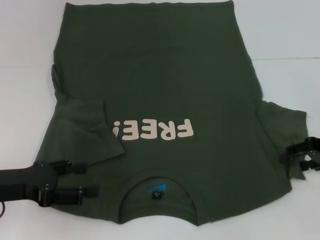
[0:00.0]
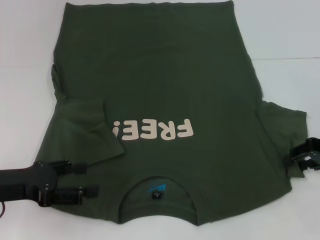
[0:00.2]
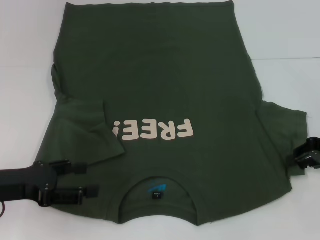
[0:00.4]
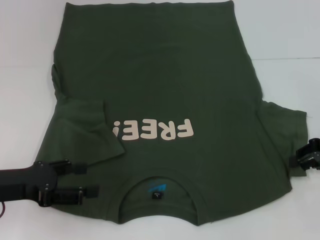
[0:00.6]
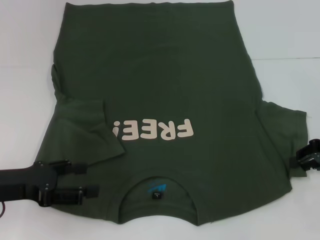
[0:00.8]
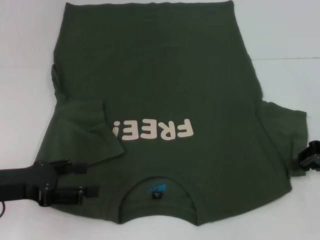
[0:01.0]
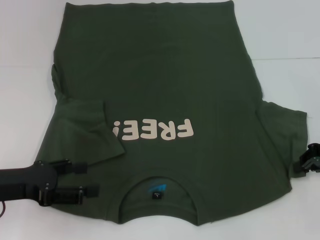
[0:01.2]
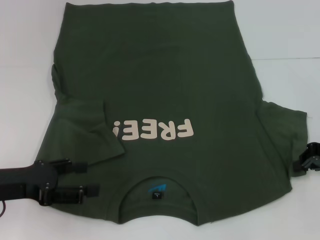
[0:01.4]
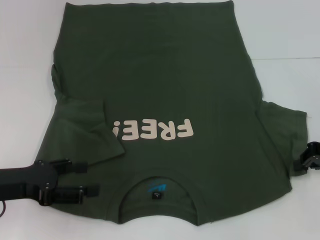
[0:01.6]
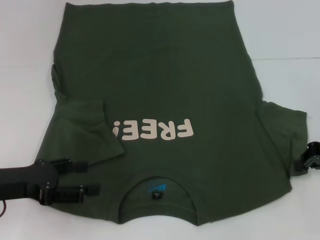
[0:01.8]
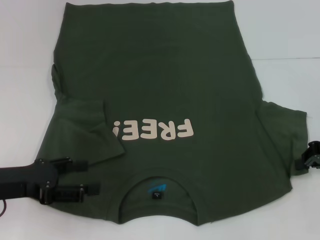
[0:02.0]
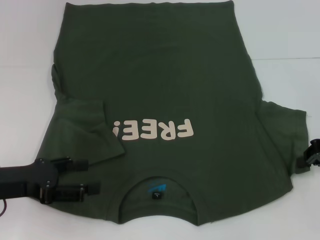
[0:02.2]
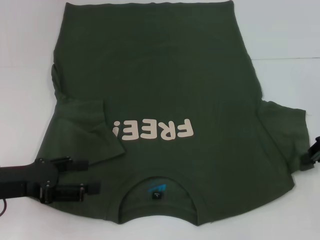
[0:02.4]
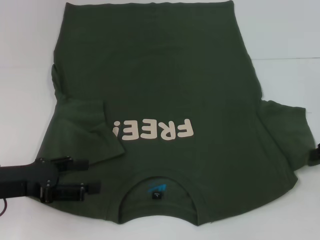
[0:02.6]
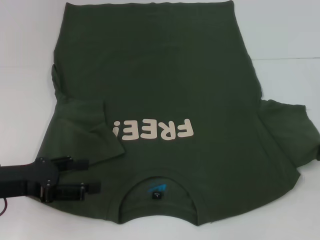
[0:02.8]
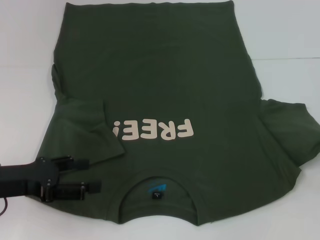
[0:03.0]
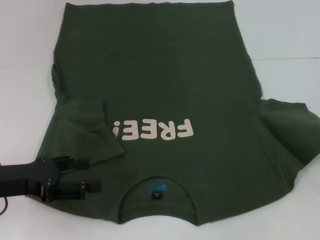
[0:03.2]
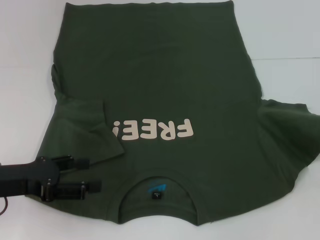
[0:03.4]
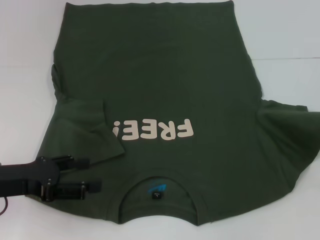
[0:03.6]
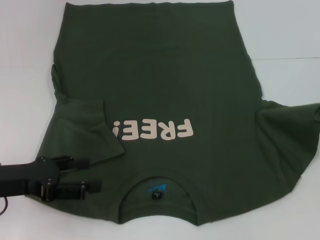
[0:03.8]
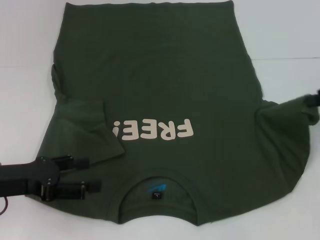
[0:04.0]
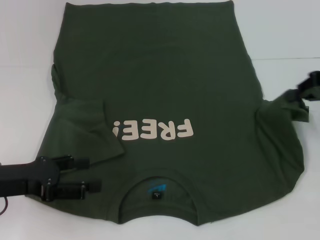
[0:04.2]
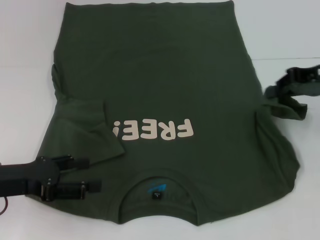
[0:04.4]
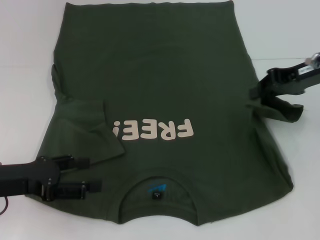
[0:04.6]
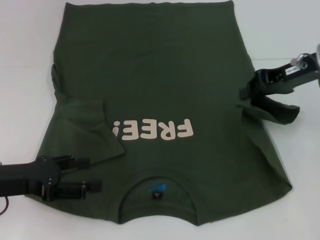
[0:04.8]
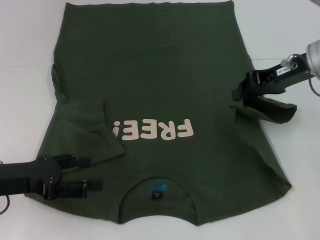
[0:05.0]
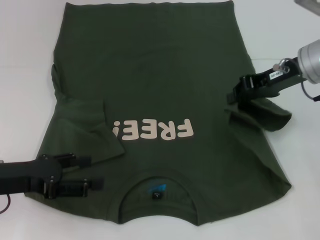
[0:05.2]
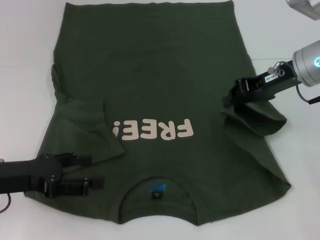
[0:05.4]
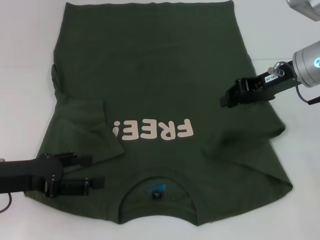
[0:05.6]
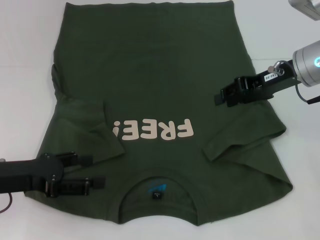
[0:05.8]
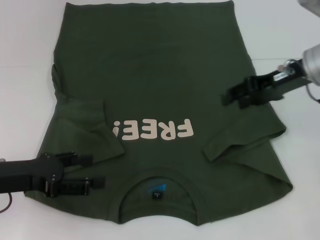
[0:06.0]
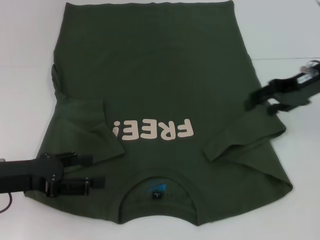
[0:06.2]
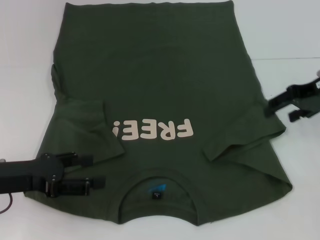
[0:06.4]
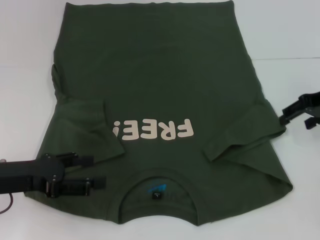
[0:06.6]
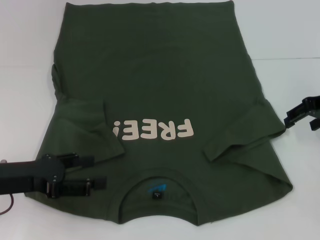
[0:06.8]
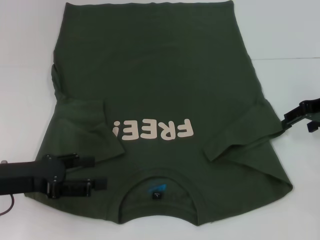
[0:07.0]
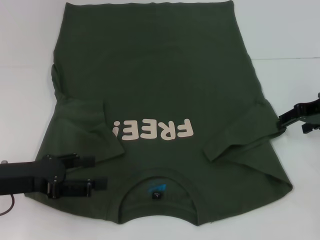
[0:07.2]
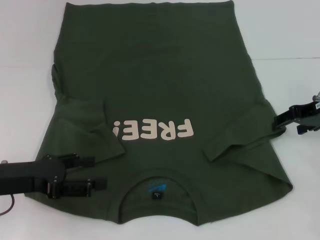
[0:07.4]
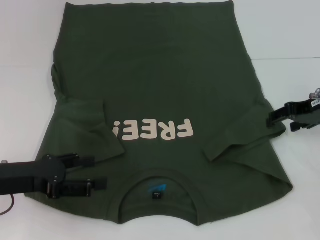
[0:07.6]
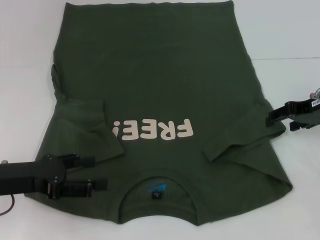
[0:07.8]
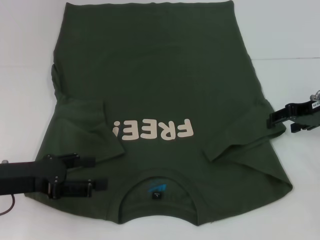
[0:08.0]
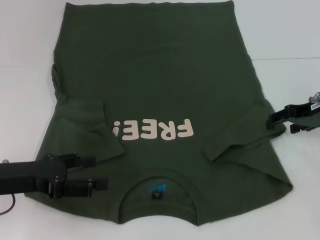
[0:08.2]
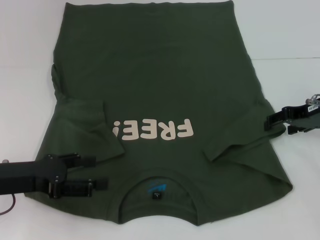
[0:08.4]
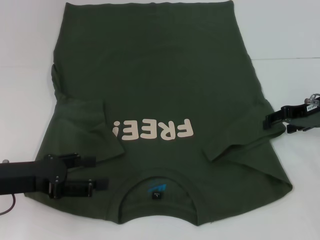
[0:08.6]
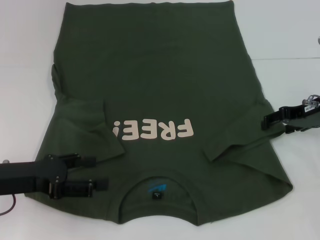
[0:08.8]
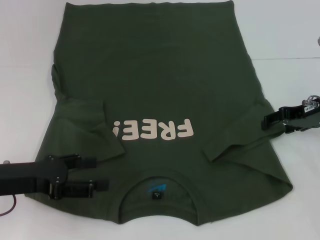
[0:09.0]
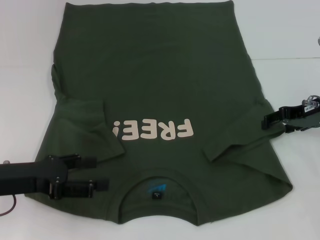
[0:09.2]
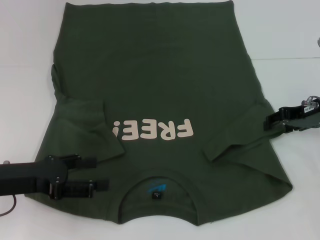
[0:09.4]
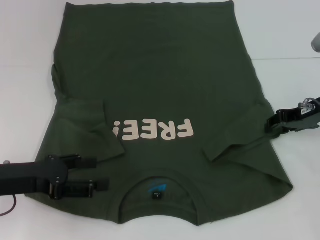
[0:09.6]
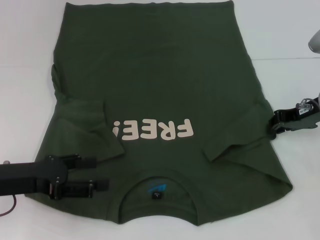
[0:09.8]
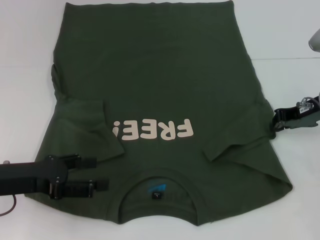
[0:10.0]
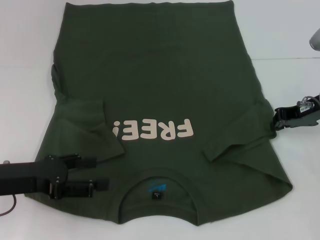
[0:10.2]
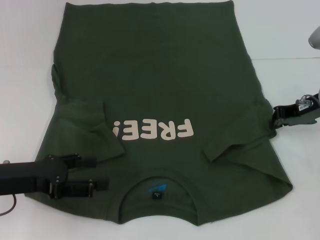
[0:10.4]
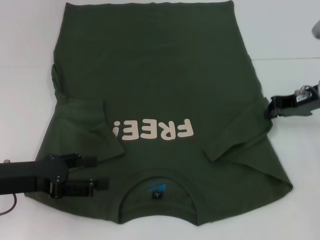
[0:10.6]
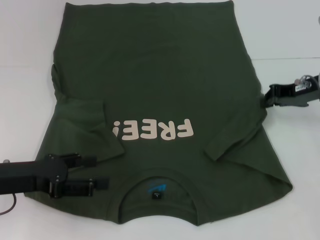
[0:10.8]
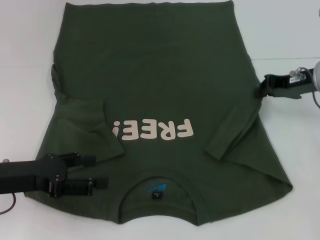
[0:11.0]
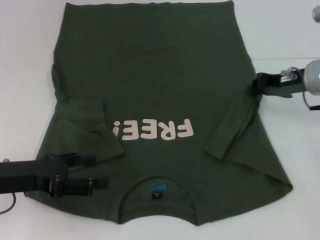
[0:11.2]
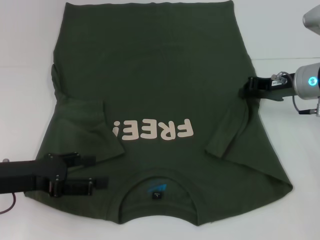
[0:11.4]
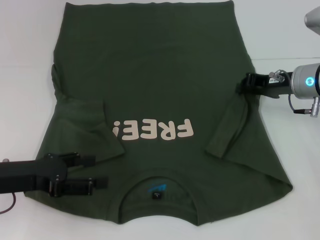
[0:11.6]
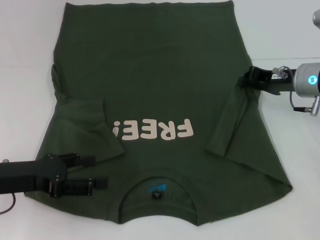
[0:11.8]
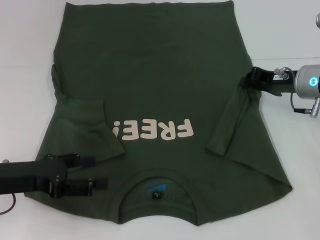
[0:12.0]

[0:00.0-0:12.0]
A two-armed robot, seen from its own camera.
0:00.0 to 0:01.6: The right gripper closes its fingers.
0:01.6 to 0:03.0: The right gripper ends up about 5 cm from where it was.
0:03.0 to 0:04.4: The right gripper shifts about 10 cm to the left, forward and upward.
0:04.4 to 0:06.0: The right gripper heads to the left, covering roughly 5 cm, and opens its fingers.
0:06.0 to 0:07.6: The right gripper moves to the right, some 5 cm.
0:07.6 to 0:09.0: The grippers move only a little.
0:09.0 to 0:10.4: The right gripper closes its fingers.

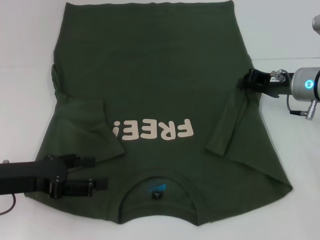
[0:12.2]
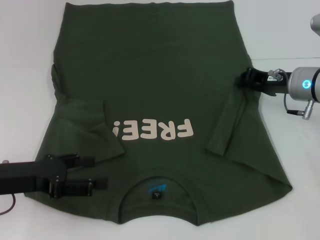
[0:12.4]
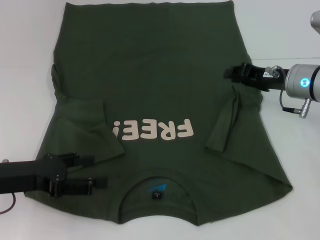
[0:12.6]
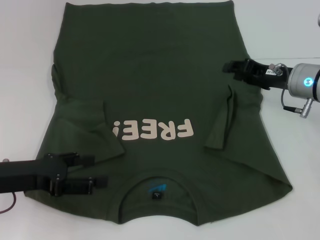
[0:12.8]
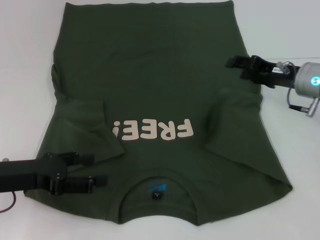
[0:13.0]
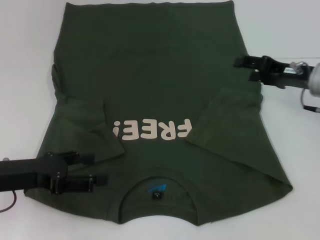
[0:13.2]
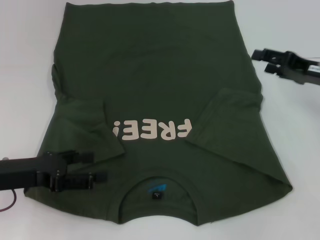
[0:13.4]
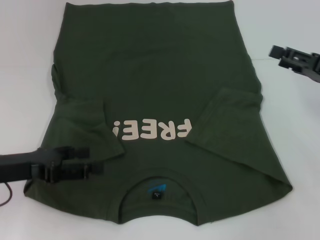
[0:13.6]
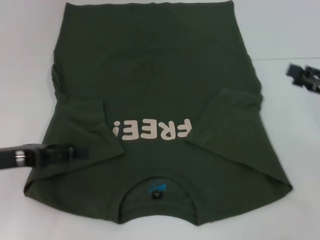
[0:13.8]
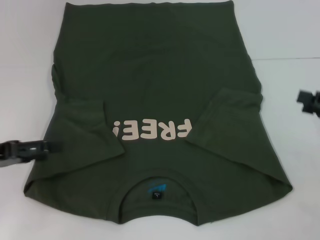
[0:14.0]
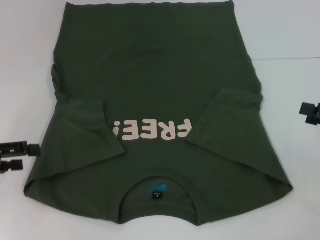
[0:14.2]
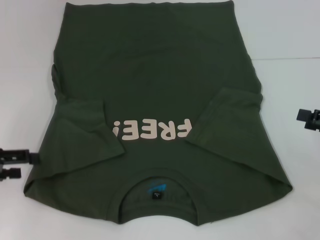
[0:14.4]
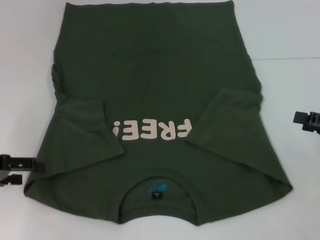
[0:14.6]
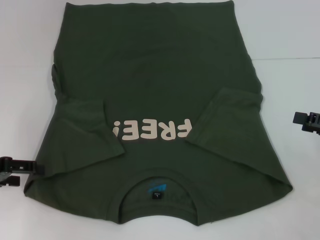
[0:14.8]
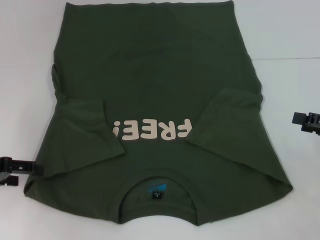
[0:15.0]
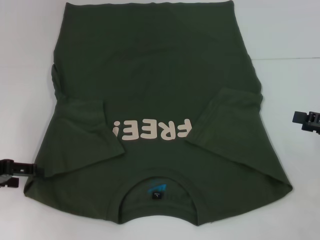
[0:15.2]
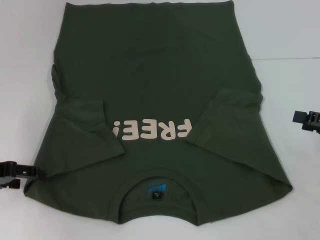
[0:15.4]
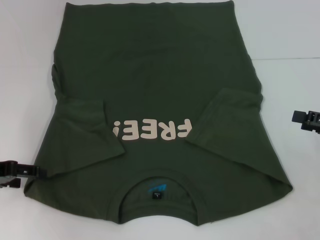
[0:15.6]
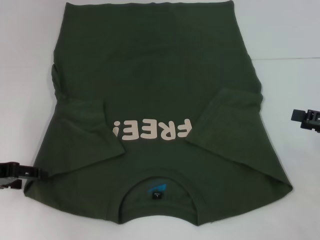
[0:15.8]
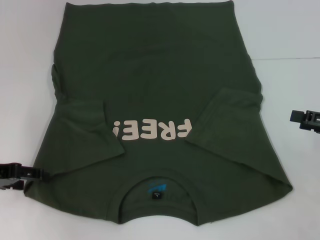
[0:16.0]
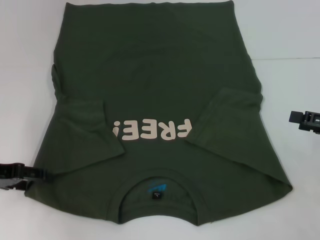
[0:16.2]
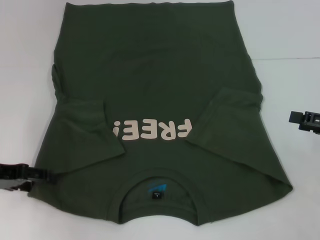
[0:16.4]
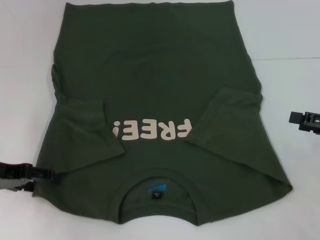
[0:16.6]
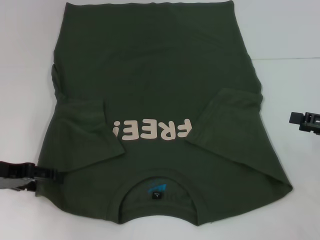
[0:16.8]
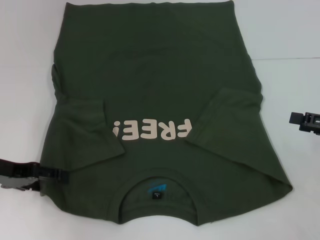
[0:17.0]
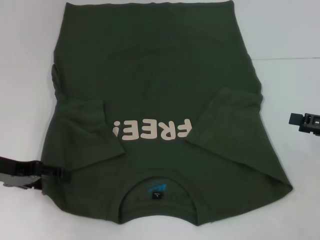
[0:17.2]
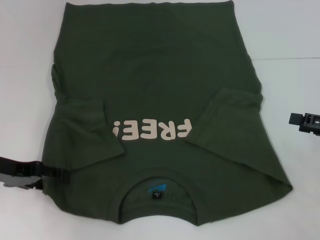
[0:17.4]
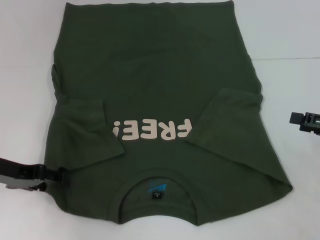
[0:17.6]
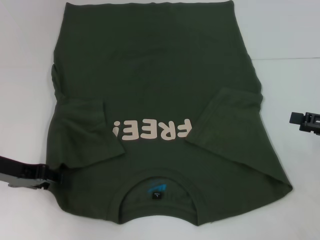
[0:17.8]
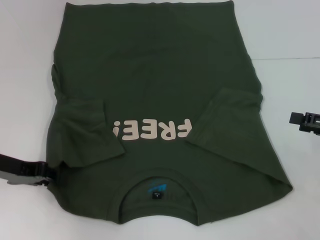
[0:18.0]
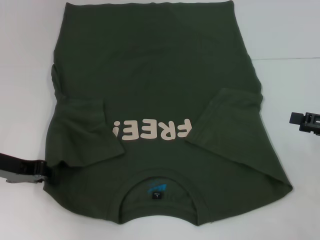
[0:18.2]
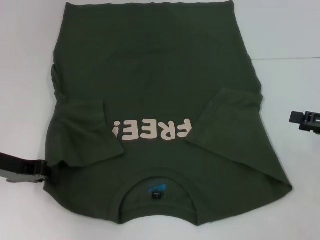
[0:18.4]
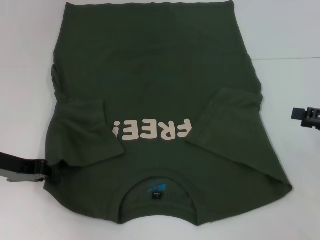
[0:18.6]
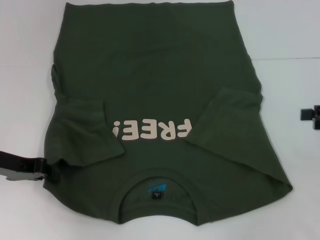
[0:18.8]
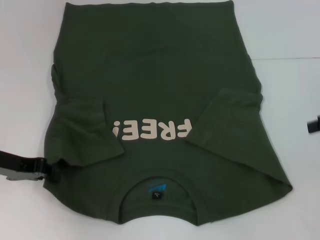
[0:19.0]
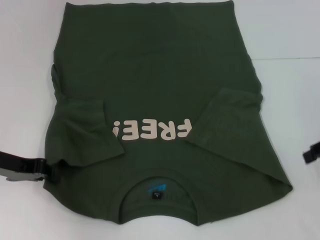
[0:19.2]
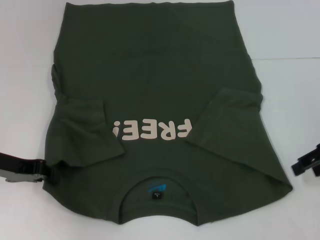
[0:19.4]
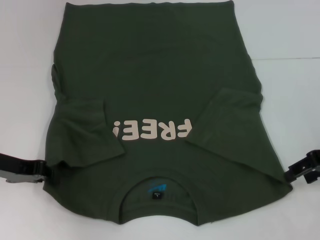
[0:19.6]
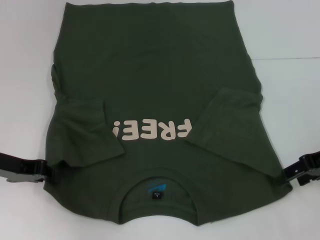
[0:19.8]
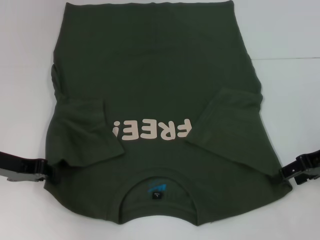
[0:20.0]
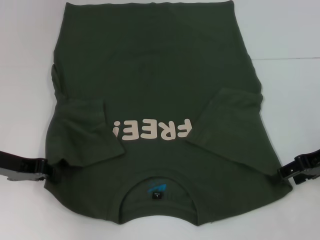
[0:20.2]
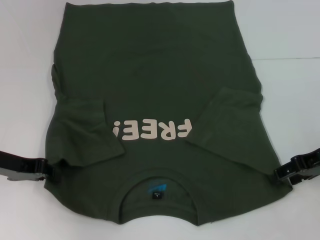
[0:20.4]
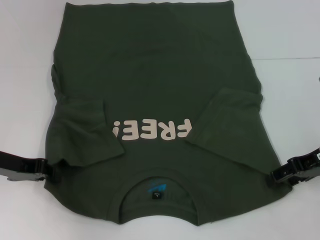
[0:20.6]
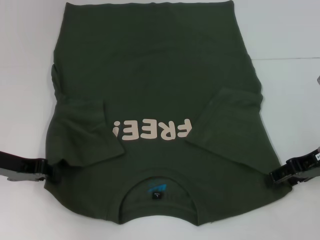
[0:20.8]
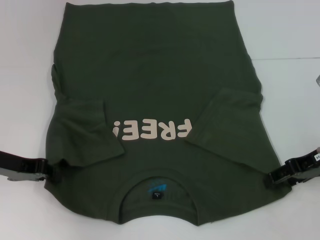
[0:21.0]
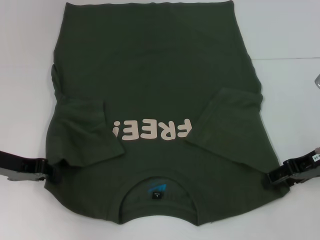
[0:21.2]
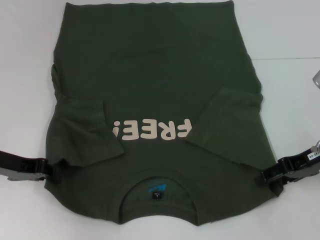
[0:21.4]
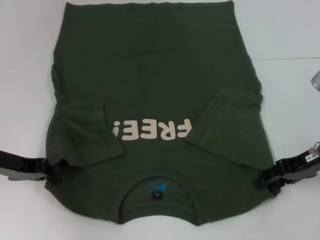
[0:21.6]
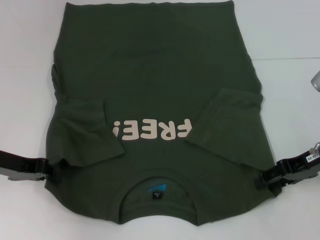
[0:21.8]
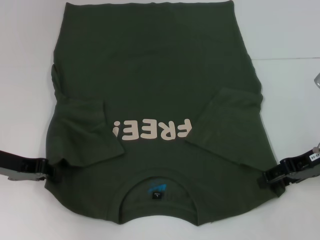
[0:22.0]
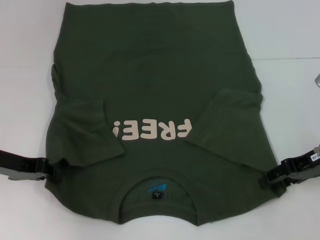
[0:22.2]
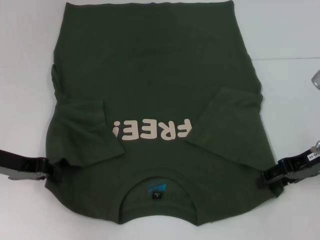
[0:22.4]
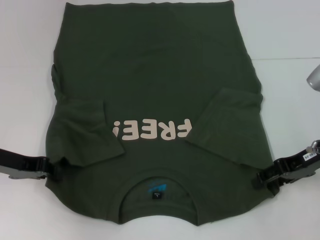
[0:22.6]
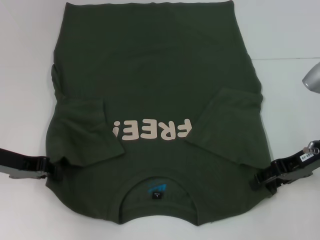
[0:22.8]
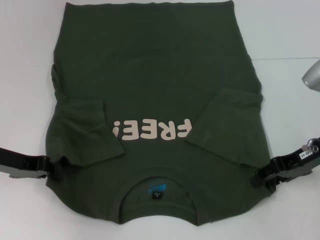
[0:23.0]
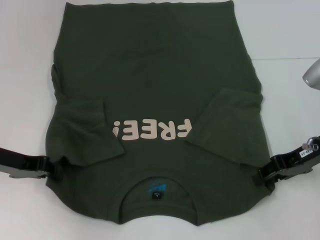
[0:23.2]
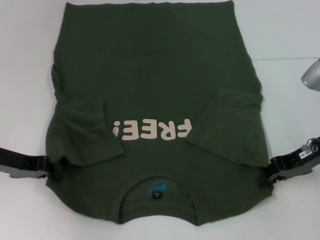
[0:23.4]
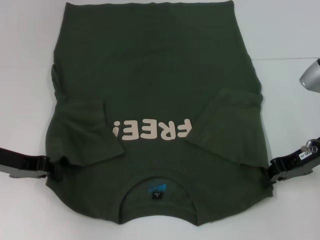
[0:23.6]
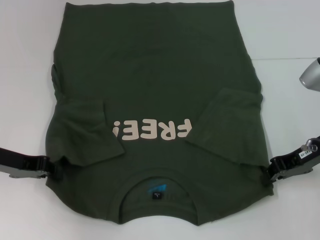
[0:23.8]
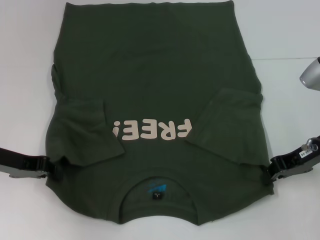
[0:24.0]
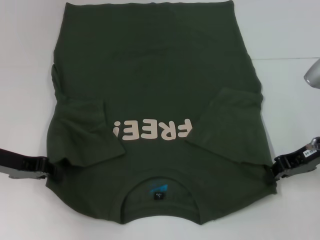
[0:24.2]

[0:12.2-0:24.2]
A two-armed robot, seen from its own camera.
Step, 0:13.6 to 0:18.6: Grab the bottom left corner with your left hand.
Step, 0:18.8 to 0:23.4: Grab the bottom right corner with your right hand.
0:12.2 to 0:13.8: The right gripper shifts some 15 cm to the right and backward, and opens.
0:15.2 to 0:16.6: The grippers move only a little.
0:16.6 to 0:18.2: The left gripper closes up.
0:18.2 to 0:19.8: The right gripper shifts about 5 cm to the left, and travels upward and back again, about 10 cm each way.
0:19.8 to 0:21.2: The grippers move only a little.
0:21.2 to 0:22.6: Both grippers stay put.
0:22.6 to 0:24.2: The right gripper closes.
